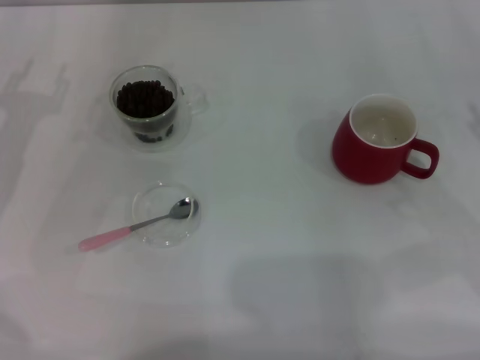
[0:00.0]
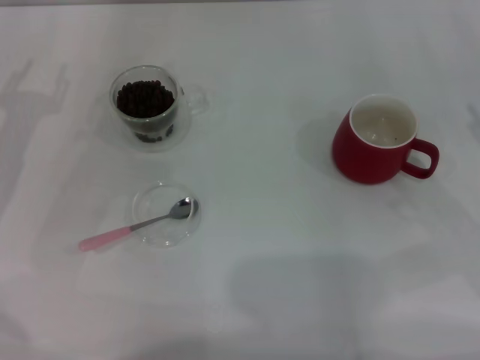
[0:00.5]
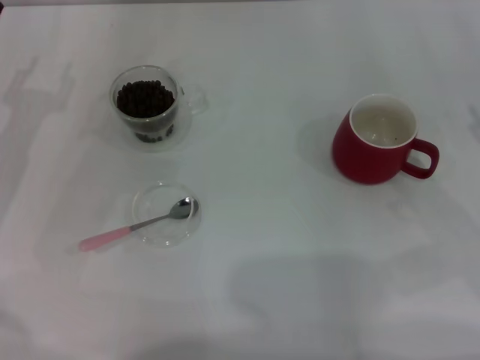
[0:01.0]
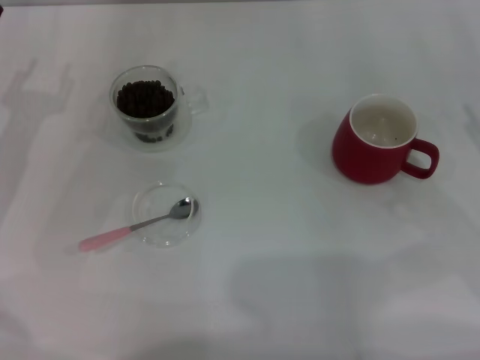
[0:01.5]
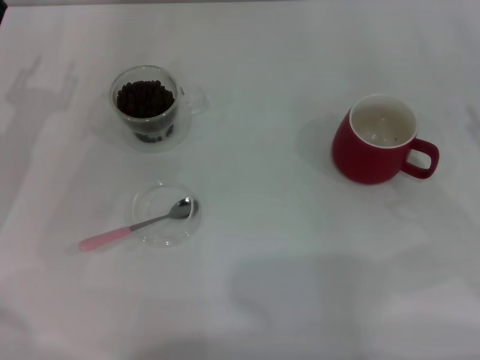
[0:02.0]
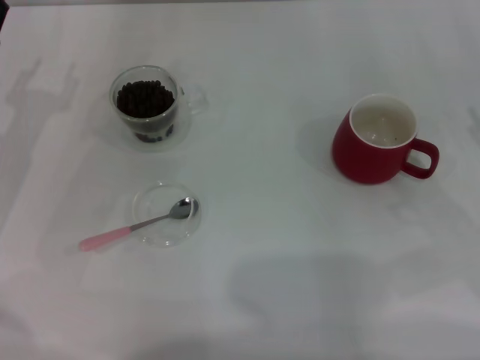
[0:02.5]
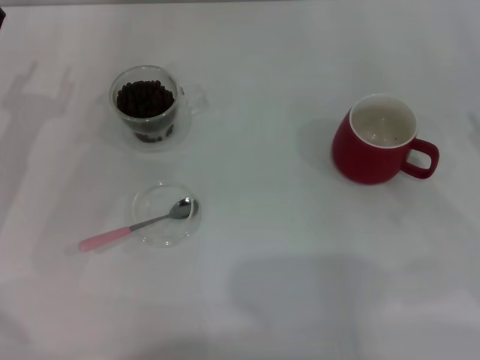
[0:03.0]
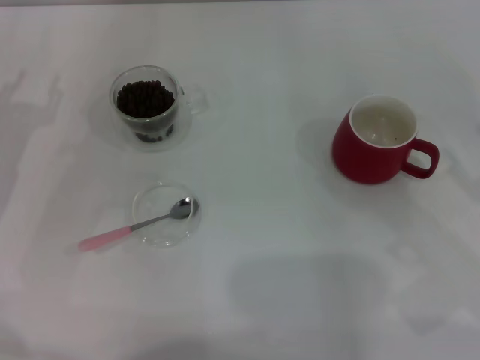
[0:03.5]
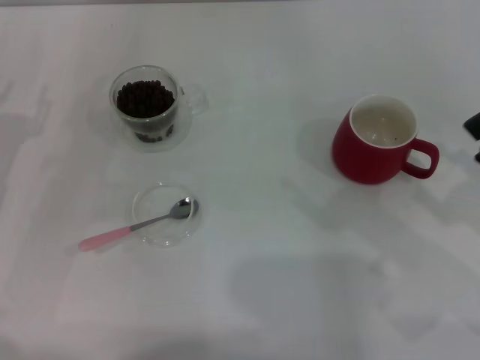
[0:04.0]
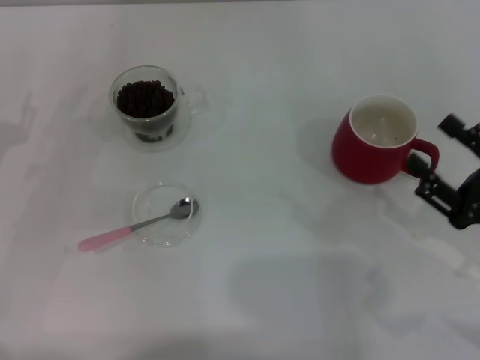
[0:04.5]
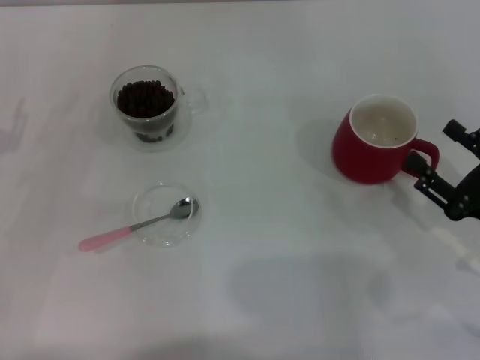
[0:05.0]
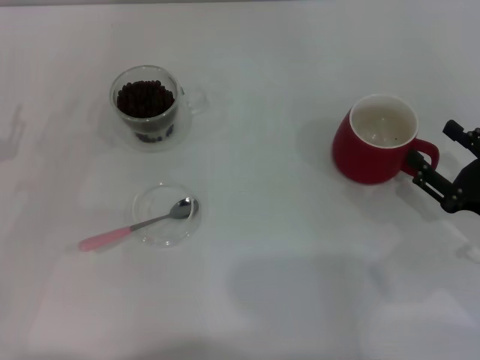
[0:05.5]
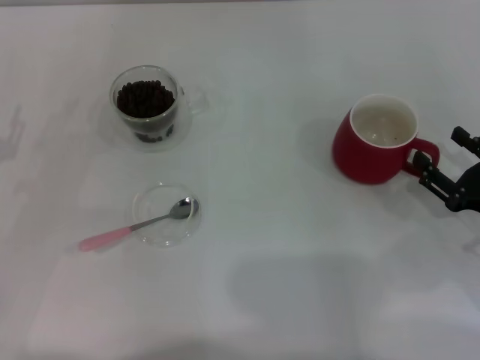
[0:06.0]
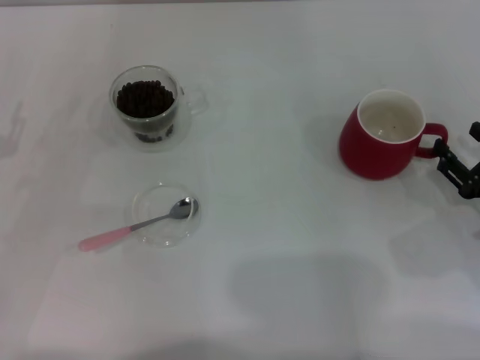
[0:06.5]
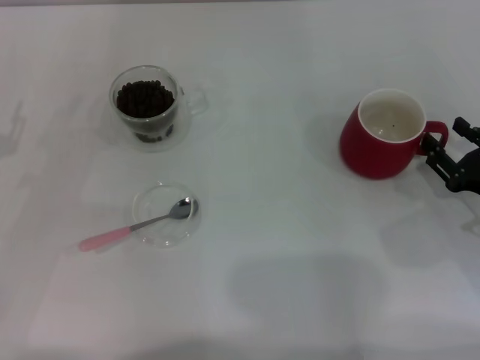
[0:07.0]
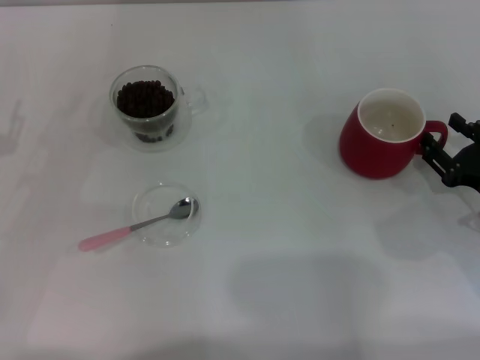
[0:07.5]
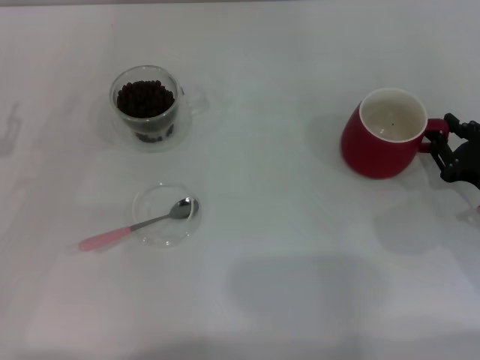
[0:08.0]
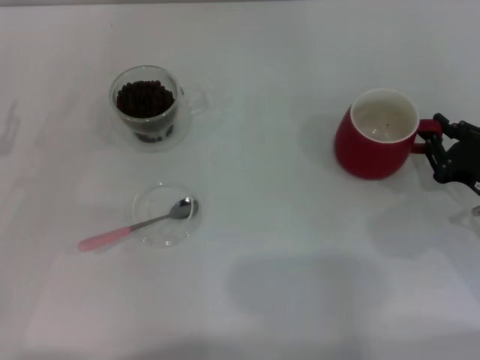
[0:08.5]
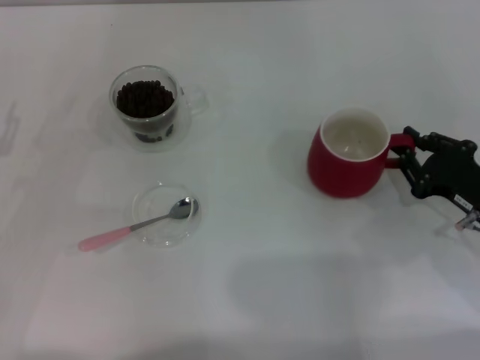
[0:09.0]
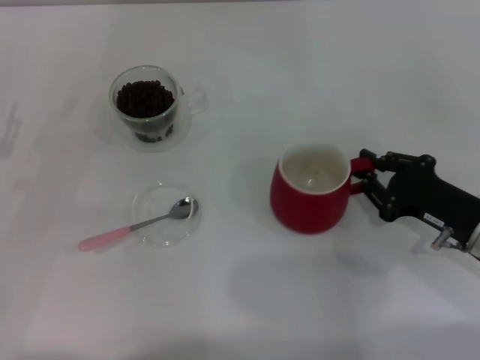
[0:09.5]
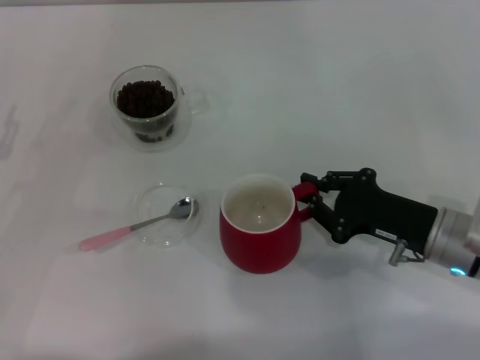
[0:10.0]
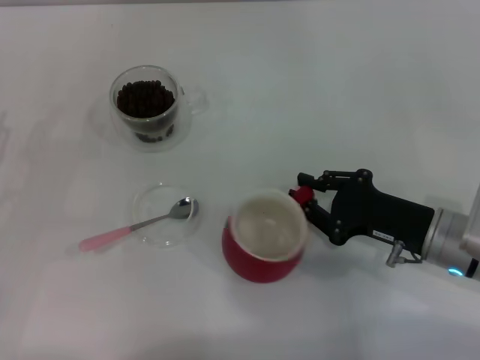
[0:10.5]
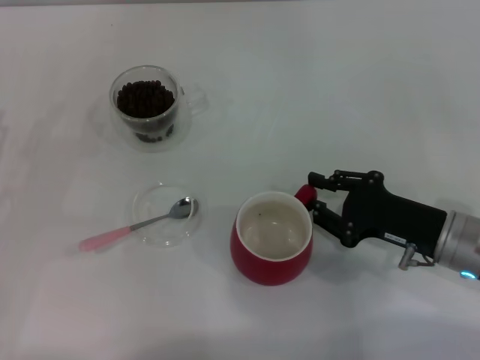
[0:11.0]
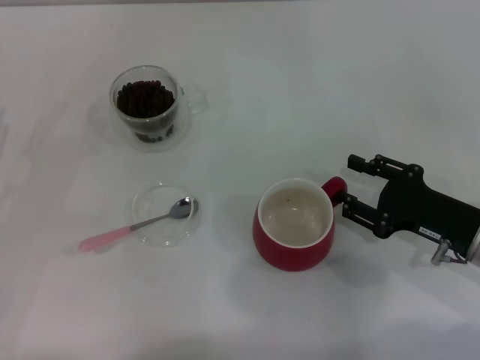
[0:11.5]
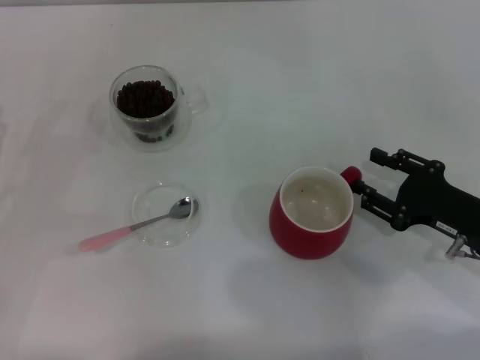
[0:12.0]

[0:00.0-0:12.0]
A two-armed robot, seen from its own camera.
Task of the whole recording: Use a pink spoon to take out the coffee beans from the glass and pour them into the red cup.
0:00.0 to 0:02.0: Both grippers stay about where they are.
0:04.0 to 0:06.0: The right gripper heads downward, covering some 5 cm.
0:06.0 to 0:08.0: The right gripper closes its fingers.
0:08.0 to 0:10.0: The right gripper shifts about 10 cm to the left, and closes up.
0:10.0 to 0:12.0: The right gripper goes some 5 cm to the right, and opens.

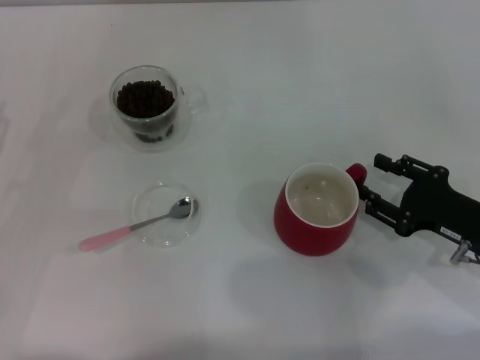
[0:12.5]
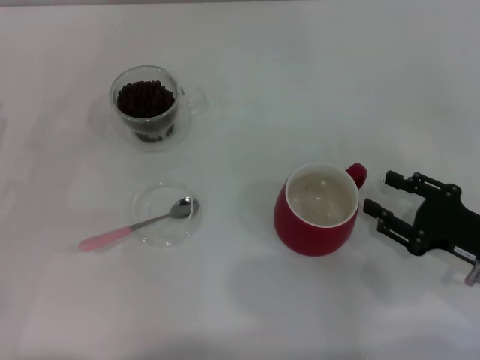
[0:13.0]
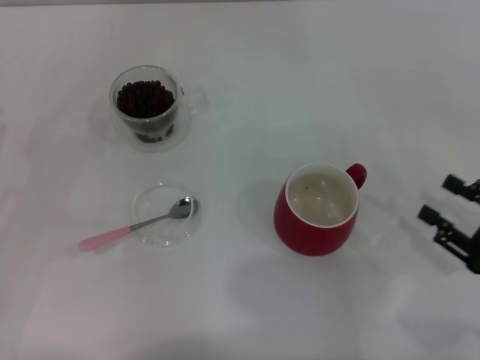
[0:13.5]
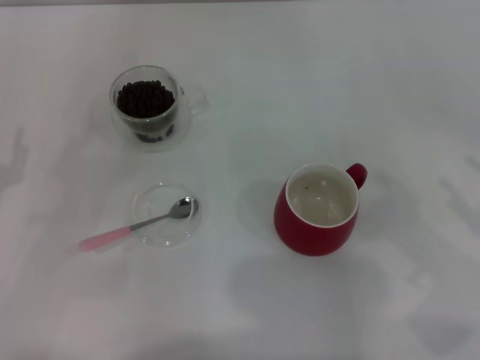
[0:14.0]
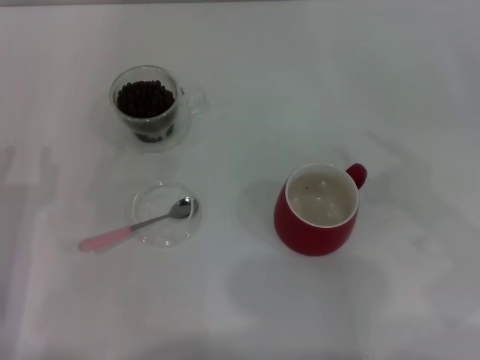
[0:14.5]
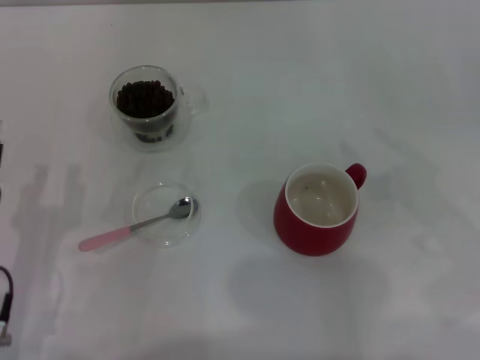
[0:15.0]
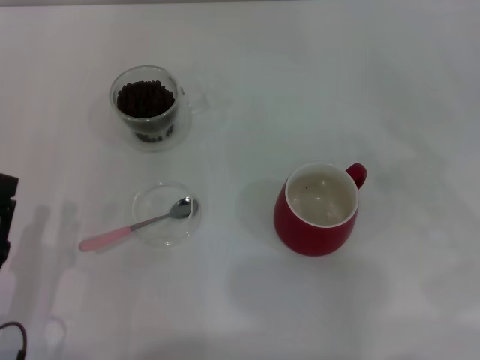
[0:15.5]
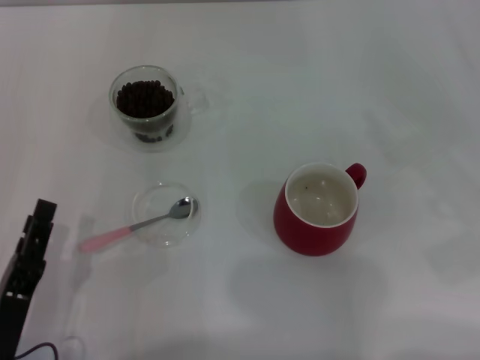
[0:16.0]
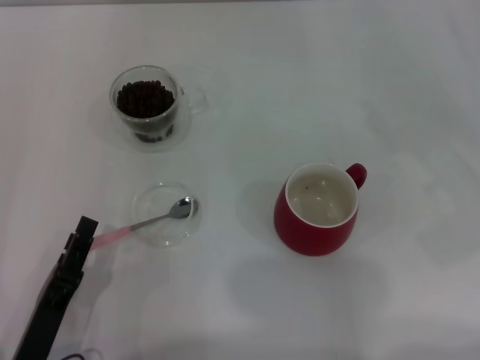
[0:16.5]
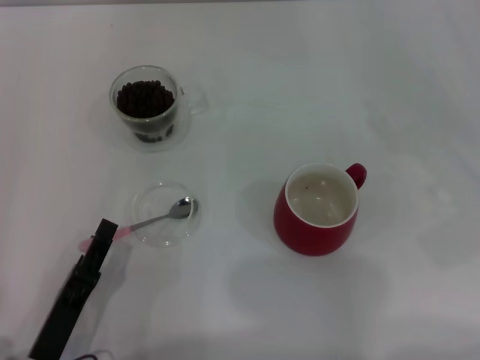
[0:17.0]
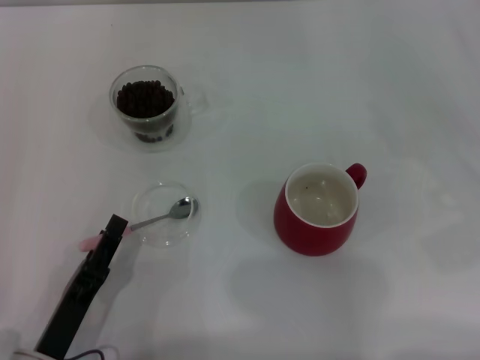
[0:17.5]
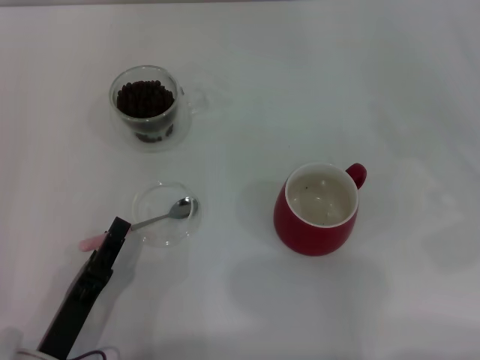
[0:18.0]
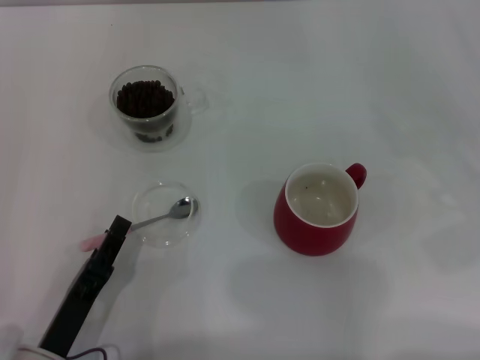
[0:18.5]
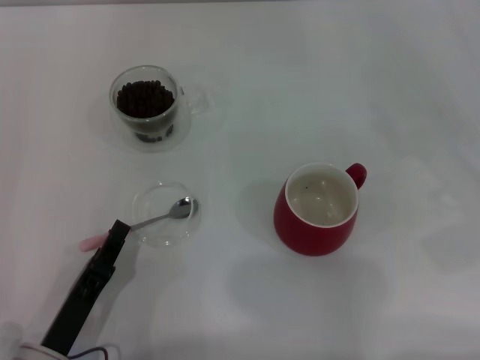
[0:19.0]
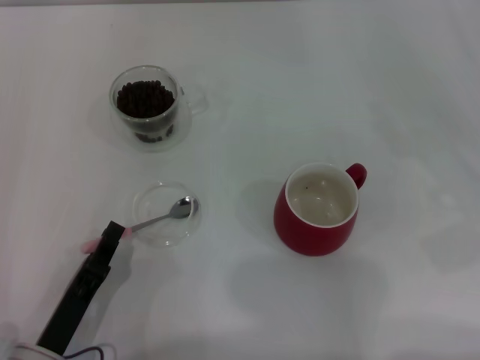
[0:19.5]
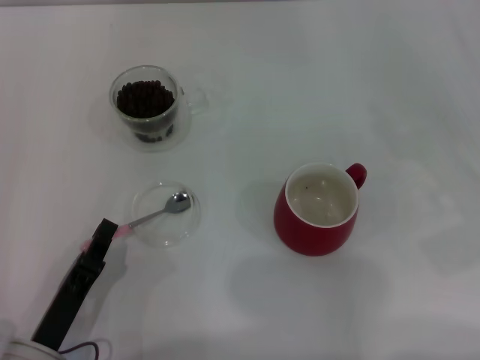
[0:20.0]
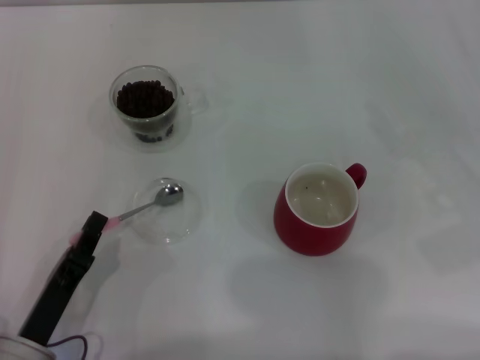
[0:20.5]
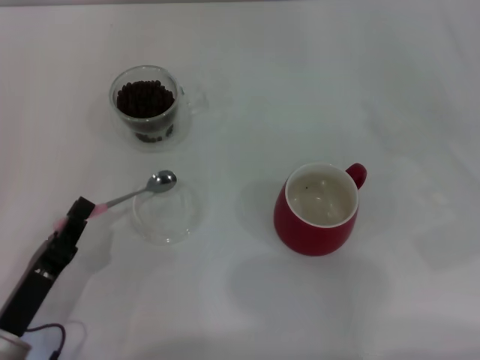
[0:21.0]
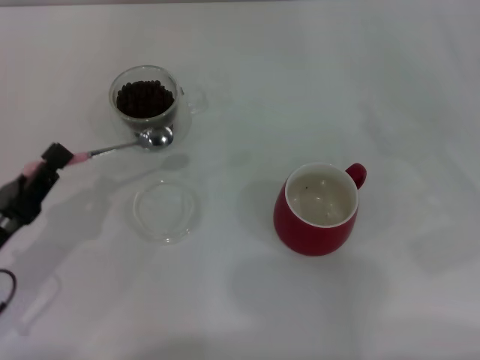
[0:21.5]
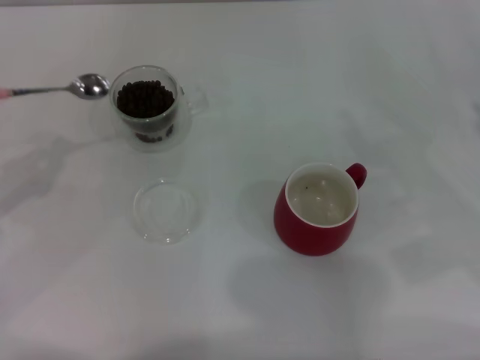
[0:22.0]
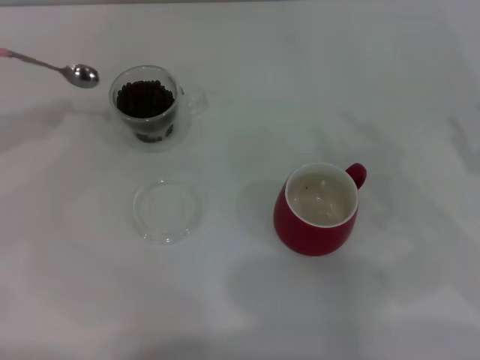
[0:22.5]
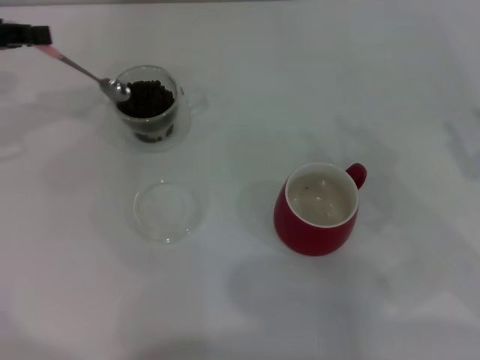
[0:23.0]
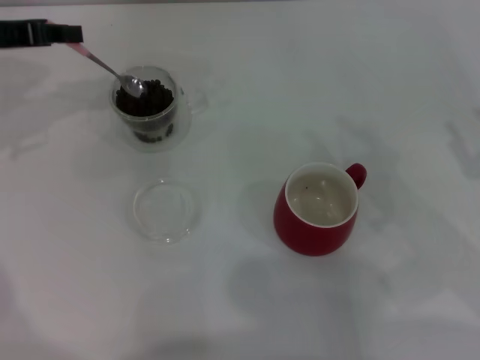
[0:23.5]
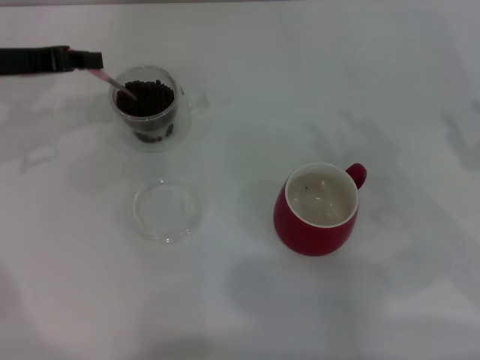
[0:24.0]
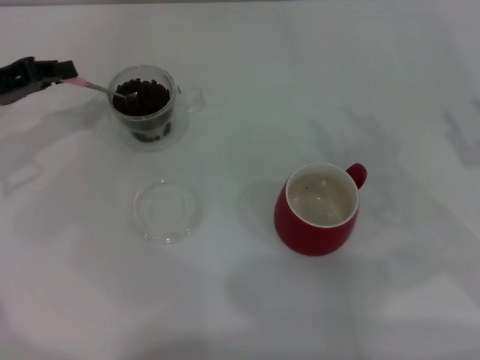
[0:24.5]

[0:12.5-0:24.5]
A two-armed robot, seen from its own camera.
Task of the whole recording: Use a pink spoon to take out the coffee beans from the glass and pour them into the red cup.
Step, 0:13.5 to 0:21.0: Pick up the spoon with the right gripper.
0:12.5 to 0:14.5: The left gripper heads to the right and backward, covering about 10 cm; the right gripper is displaced to the right and upward by roughly 15 cm.
0:14.5 to 0:16.5: The left gripper travels backward, to the right and downward by some 10 cm.
0:16.5 to 0:18.5: The grippers move only a little.
0:18.5 to 0:20.5: The left gripper closes up.
0:20.5 to 0:22.5: The left gripper moves forward, upward and to the left, roughly 30 cm.
0:22.5 to 0:24.5: The left gripper is displaced to the right and downward by approximately 10 cm.

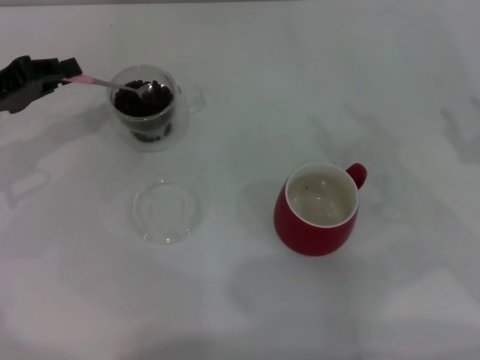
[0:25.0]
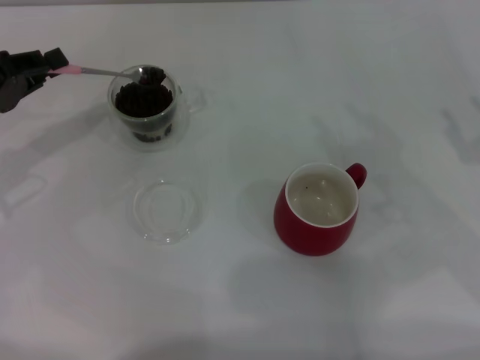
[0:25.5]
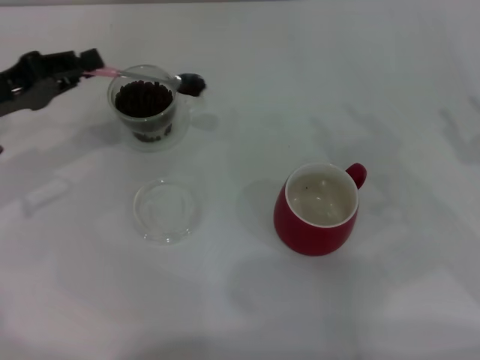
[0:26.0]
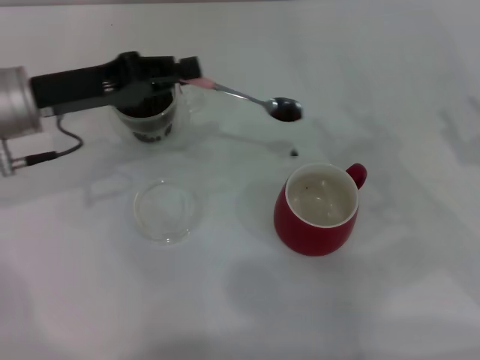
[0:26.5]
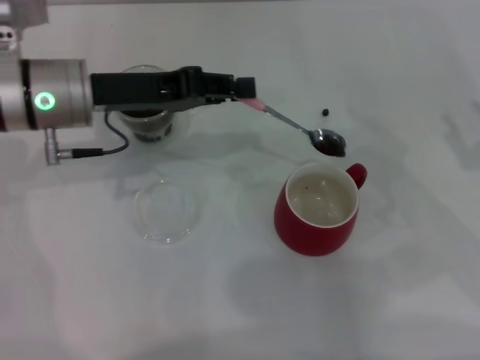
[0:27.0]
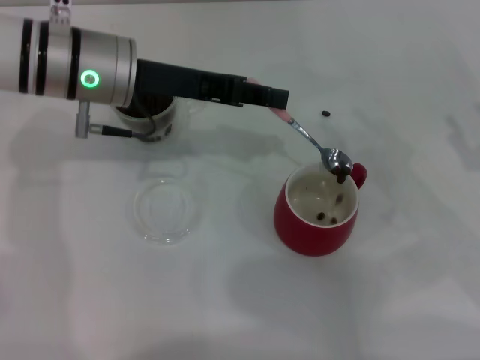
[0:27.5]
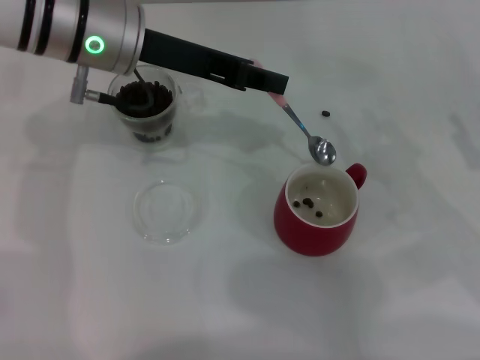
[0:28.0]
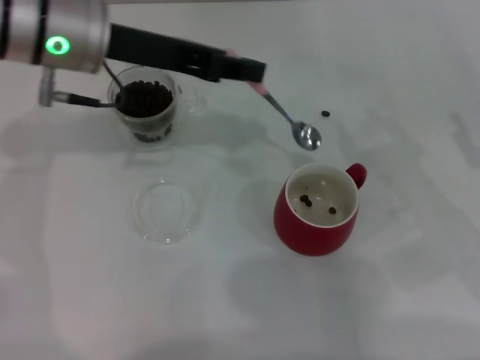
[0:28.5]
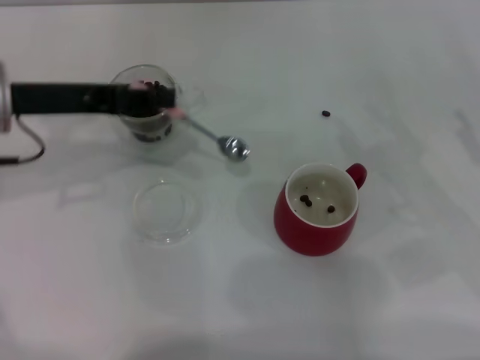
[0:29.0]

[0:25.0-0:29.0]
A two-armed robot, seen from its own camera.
Task of the whole recording: Use a pink spoon to take out the coffee beans from the glass and pour them into the red cup.
0:25.0 to 0:27.0: The left gripper shifts about 15 cm to the right.
0:27.0 to 0:29.0: The left gripper heads to the left, covering approximately 5 cm.
